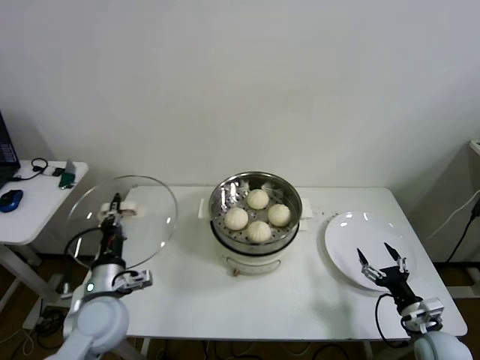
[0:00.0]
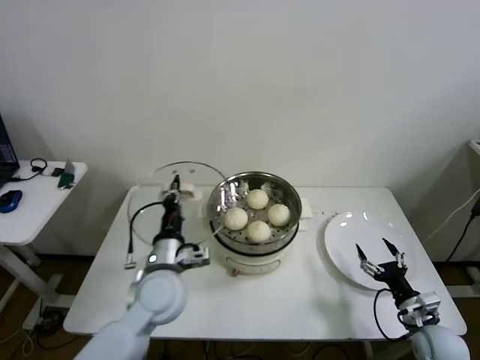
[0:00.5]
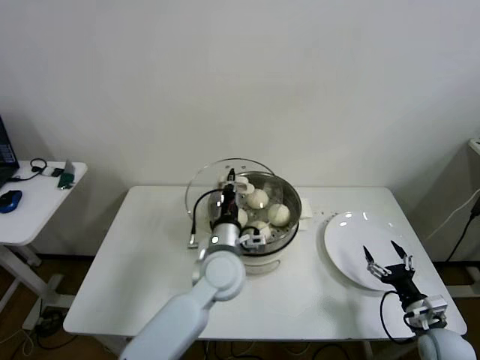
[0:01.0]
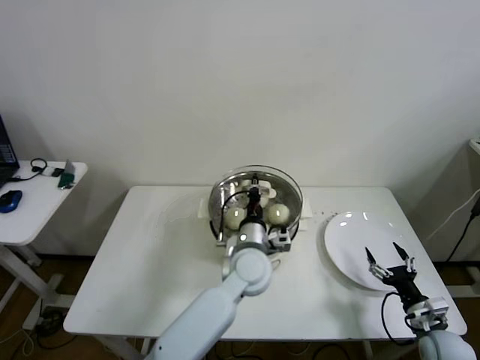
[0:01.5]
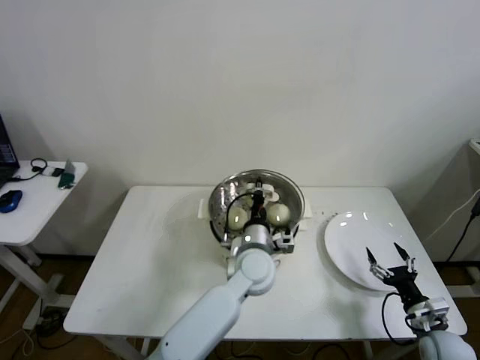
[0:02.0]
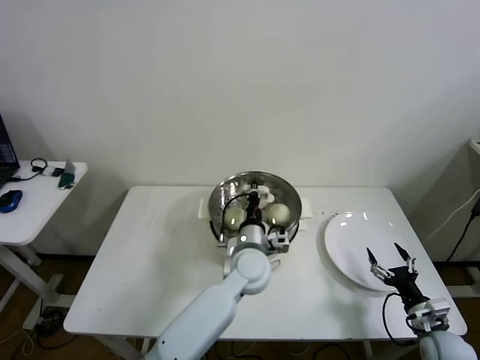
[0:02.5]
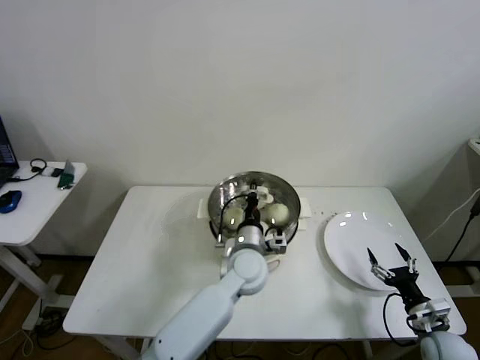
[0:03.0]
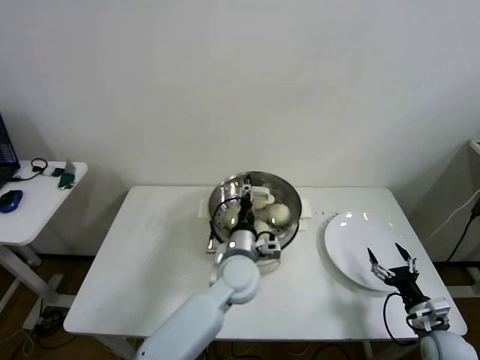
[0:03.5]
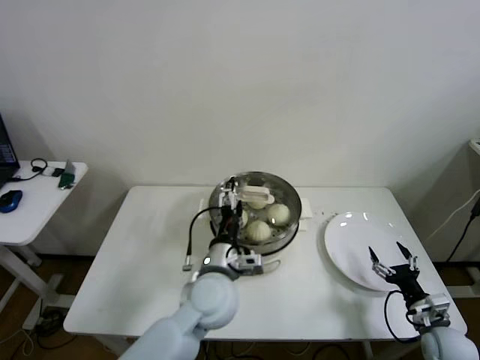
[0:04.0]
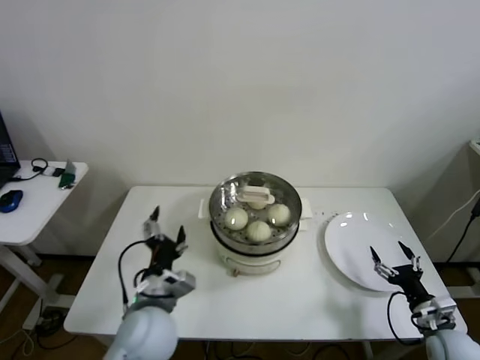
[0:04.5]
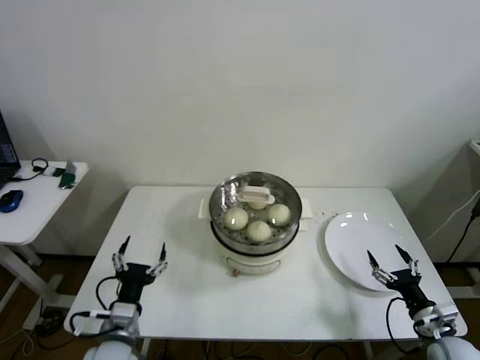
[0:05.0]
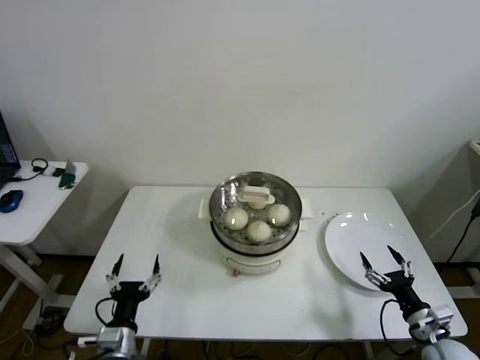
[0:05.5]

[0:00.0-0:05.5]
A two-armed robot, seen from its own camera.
Step, 0:00.0 to 0:03.0: Place the pot lid on the steamer with left gripper.
0:00.0 to 0:02.0: The left gripper is displaced to the right by roughly 30 cm.
0:02.0 to 0:03.5: The left gripper opens up.
0:03.5 to 0:05.5: The left gripper is displaced to the left and backward by some 30 cm, and opens up.

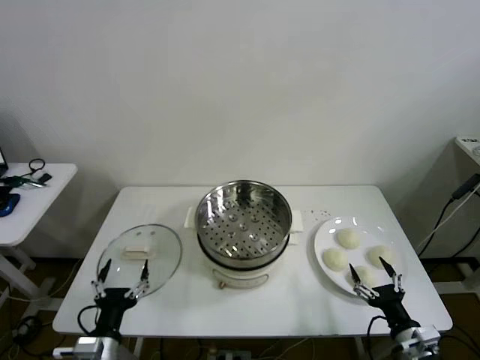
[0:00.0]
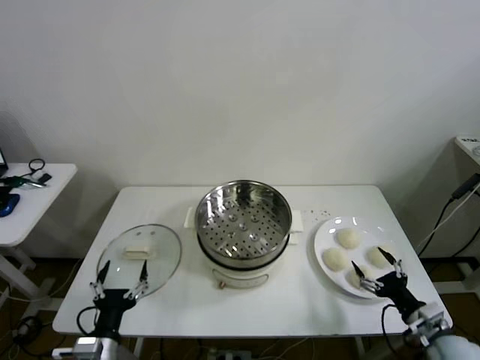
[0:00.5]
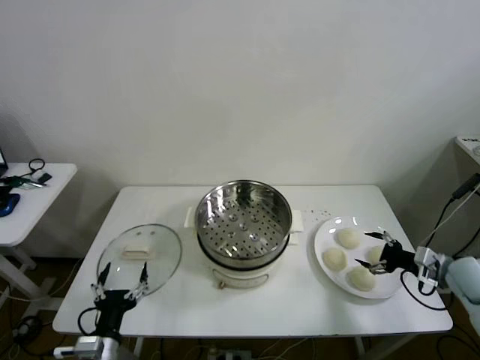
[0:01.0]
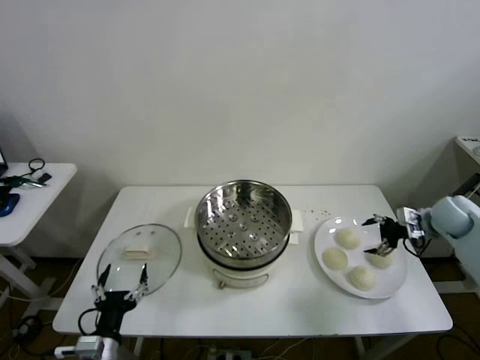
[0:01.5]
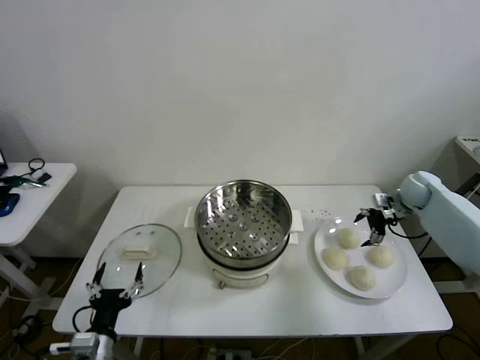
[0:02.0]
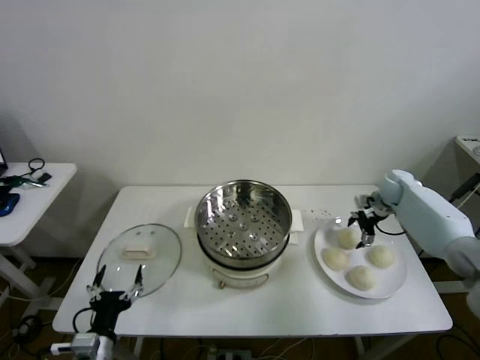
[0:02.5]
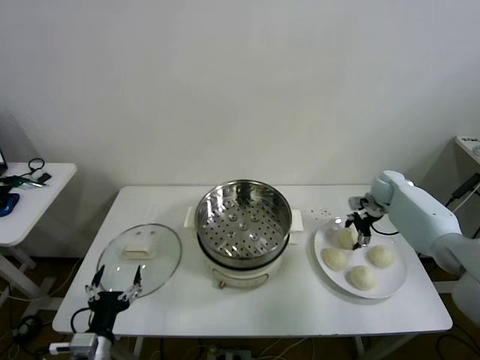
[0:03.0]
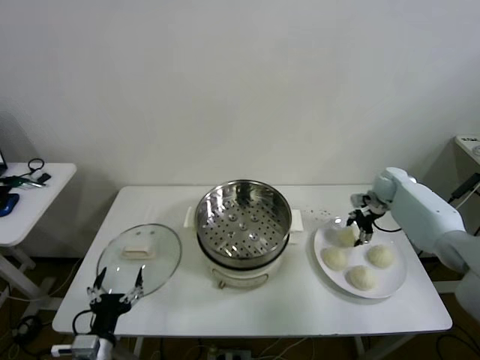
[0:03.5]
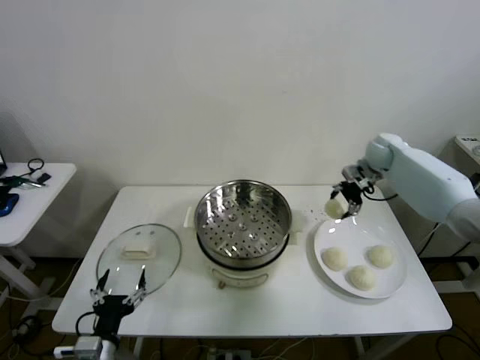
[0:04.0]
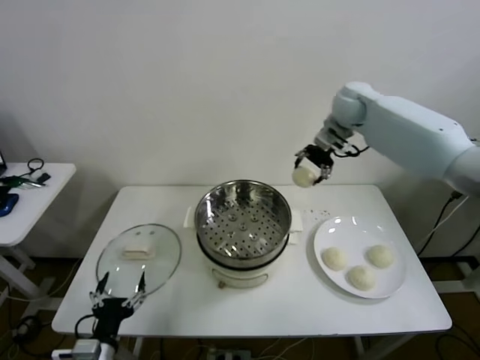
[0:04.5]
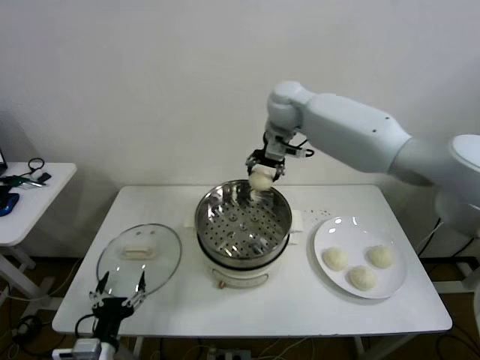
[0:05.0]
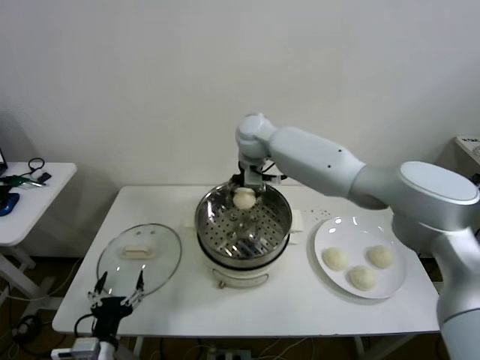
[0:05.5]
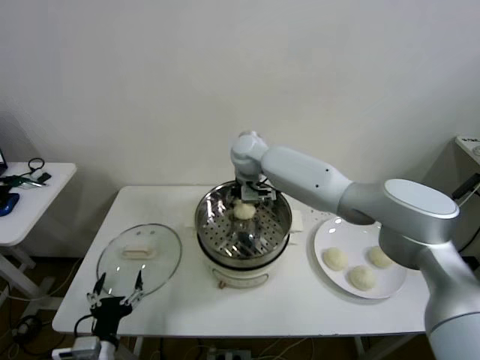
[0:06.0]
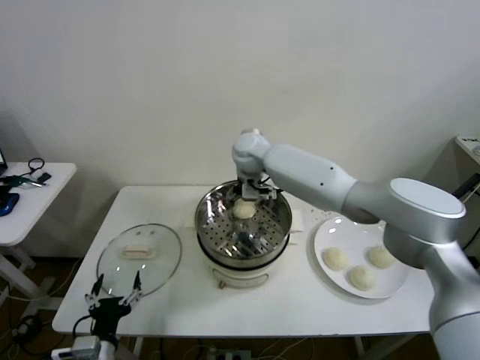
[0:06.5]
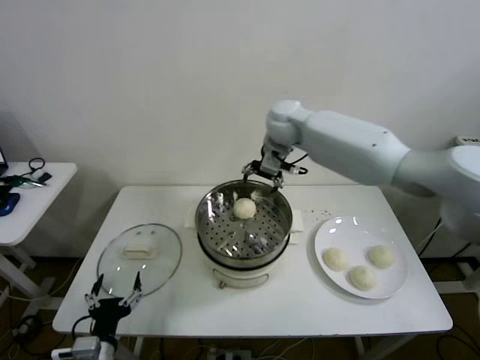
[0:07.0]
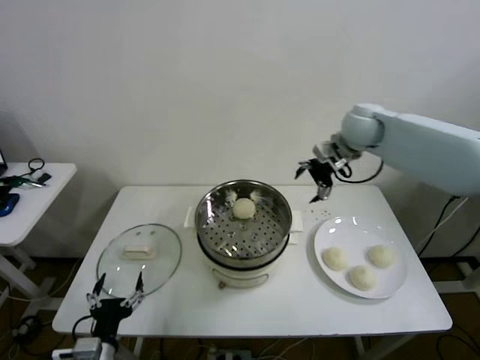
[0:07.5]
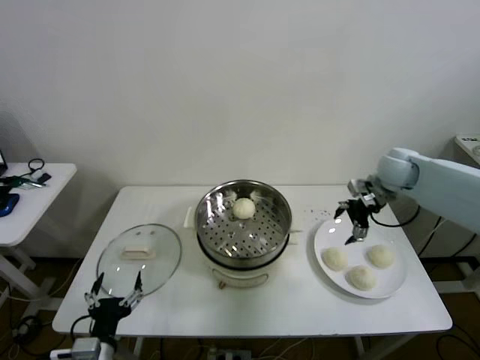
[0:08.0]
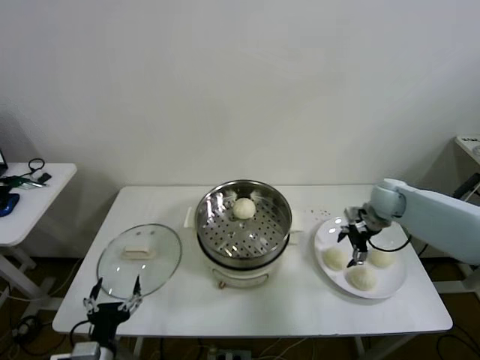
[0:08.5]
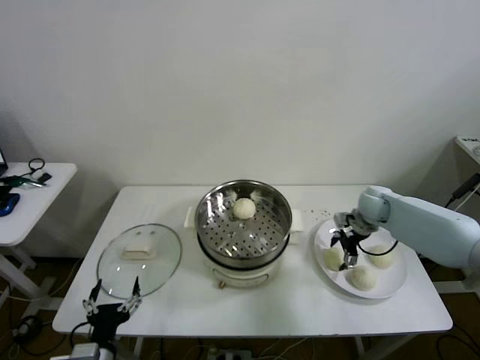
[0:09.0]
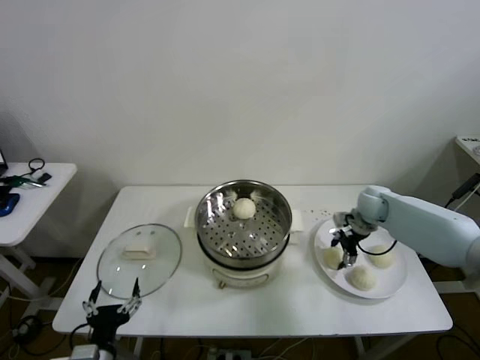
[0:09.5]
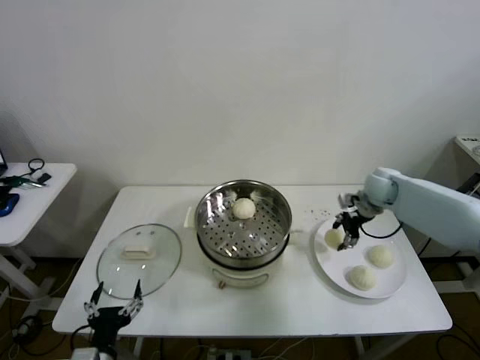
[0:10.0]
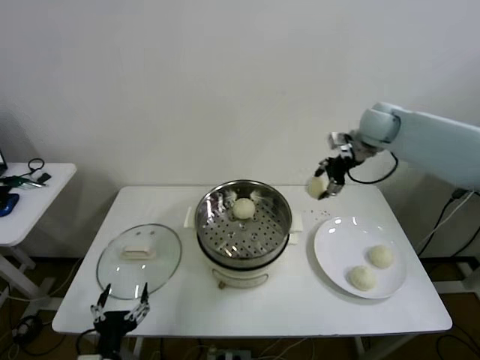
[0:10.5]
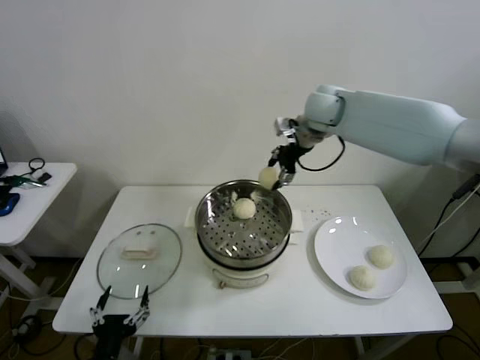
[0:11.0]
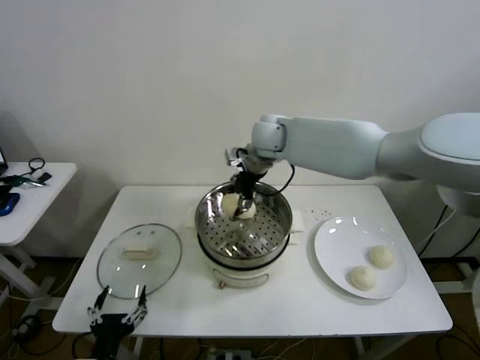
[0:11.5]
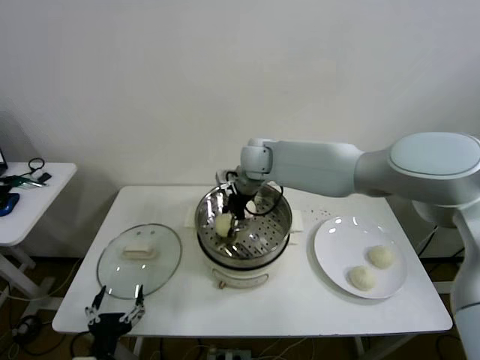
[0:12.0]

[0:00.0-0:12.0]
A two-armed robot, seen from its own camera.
Step, 0:00.0 to 0:03.0: Grasp the baozi in the plate with right gripper.
Step, 0:03.5 to 0:06.0: Place the baozi on the steamer with right gripper.
Step, 0:06.5 to 0:09.0: Grasp the baozi in the plate with right gripper.
0:02.0 to 0:04.0: The right gripper is displaced upward, to the left and forward by approximately 15 cm, and closes its fingers.
0:04.0 to 0:06.0: The right gripper goes about 35 cm to the left.
0:06.0 to 0:08.0: The right gripper moves to the right, roughly 35 cm, and opens its fingers.
0:08.0 to 0:10.0: The right gripper moves some 10 cm downward and comes back, and closes up.
0:10.0 to 0:12.0: The right gripper is displaced to the left by some 30 cm.

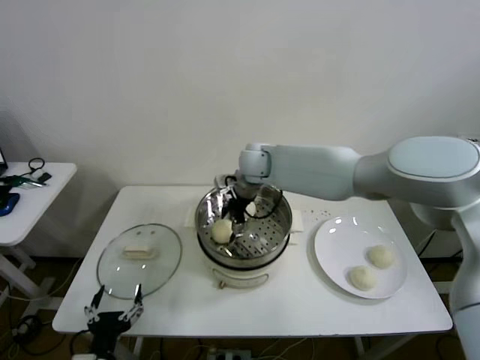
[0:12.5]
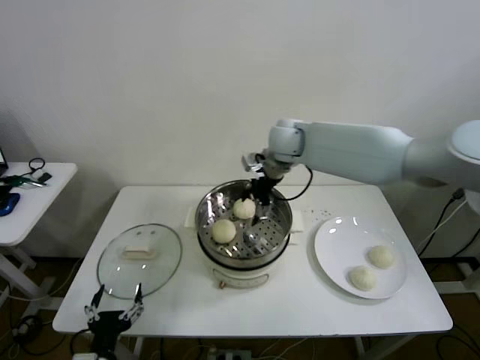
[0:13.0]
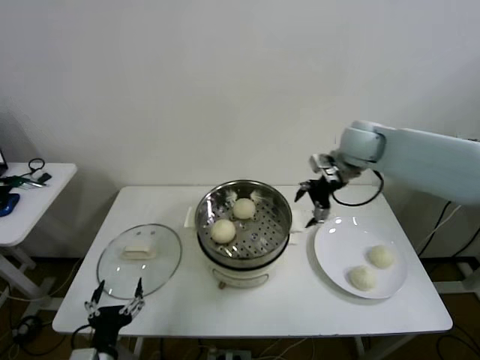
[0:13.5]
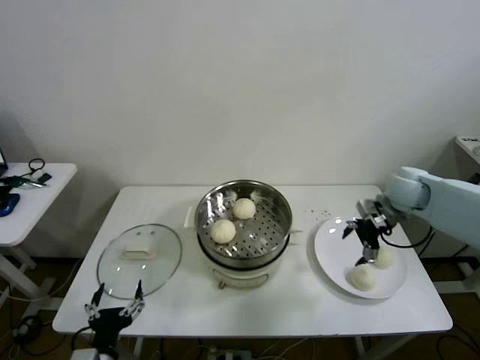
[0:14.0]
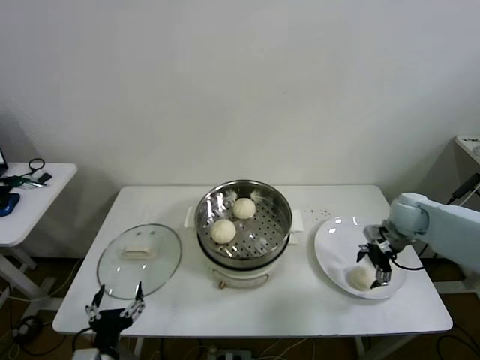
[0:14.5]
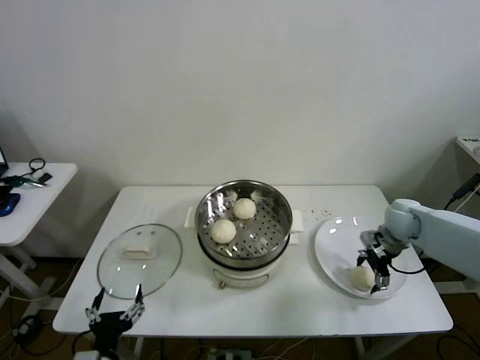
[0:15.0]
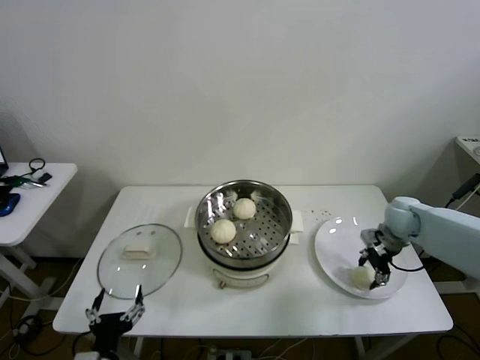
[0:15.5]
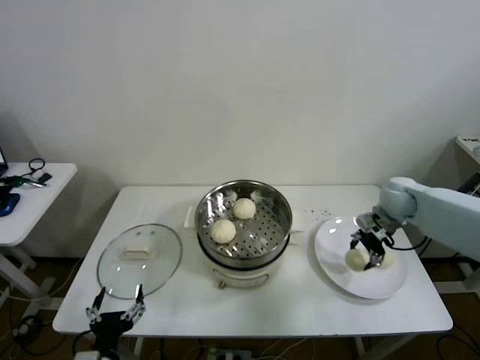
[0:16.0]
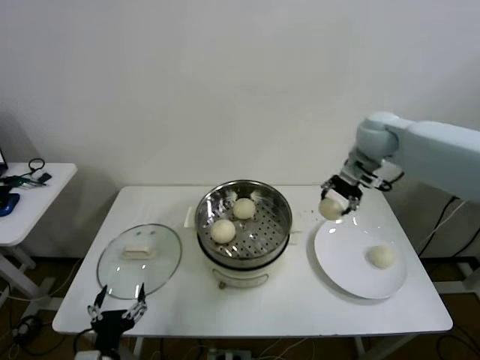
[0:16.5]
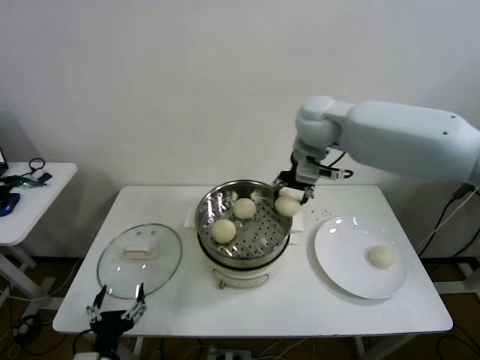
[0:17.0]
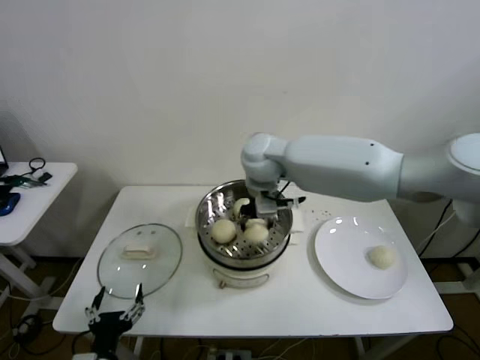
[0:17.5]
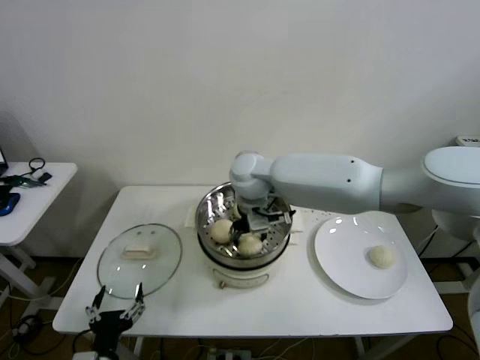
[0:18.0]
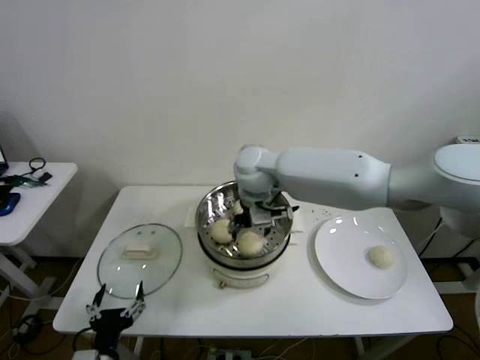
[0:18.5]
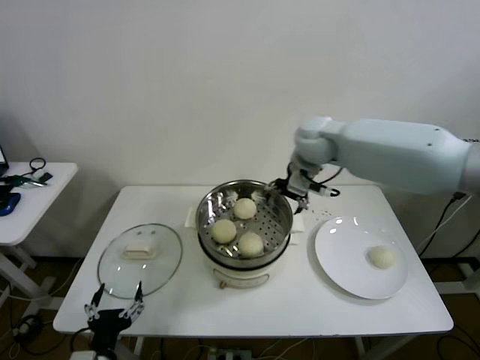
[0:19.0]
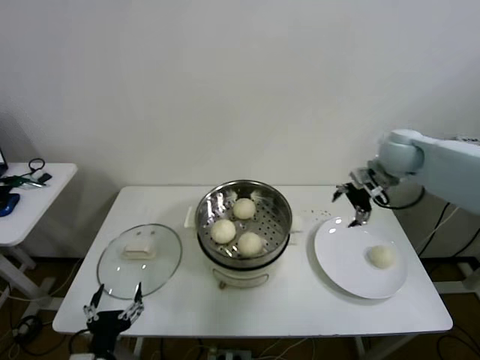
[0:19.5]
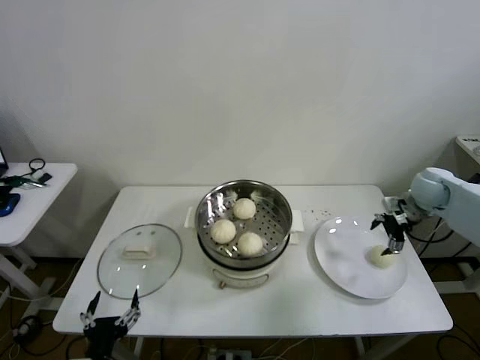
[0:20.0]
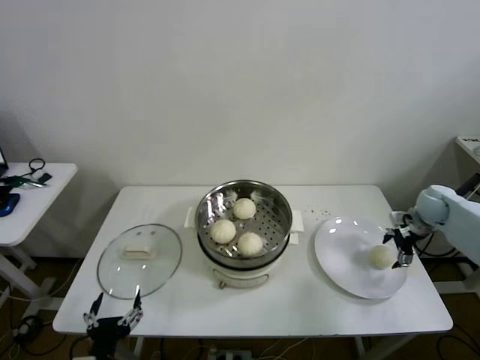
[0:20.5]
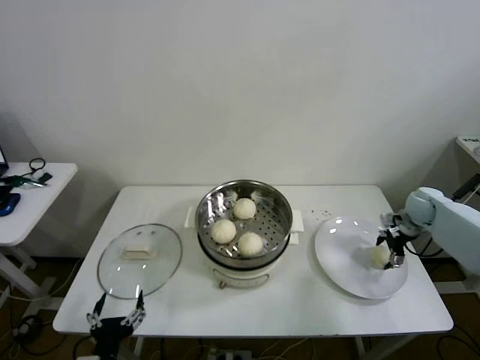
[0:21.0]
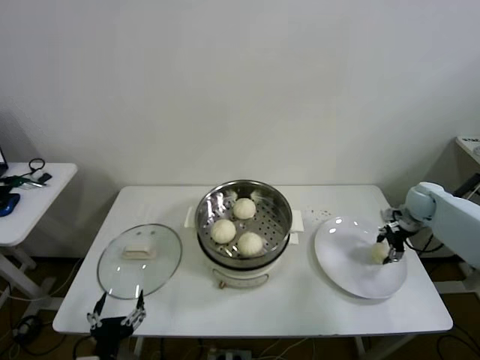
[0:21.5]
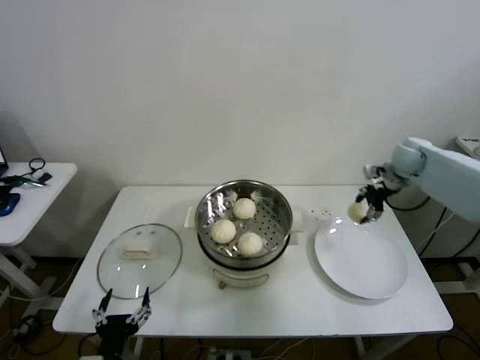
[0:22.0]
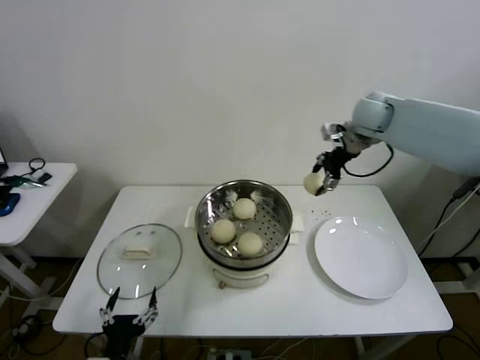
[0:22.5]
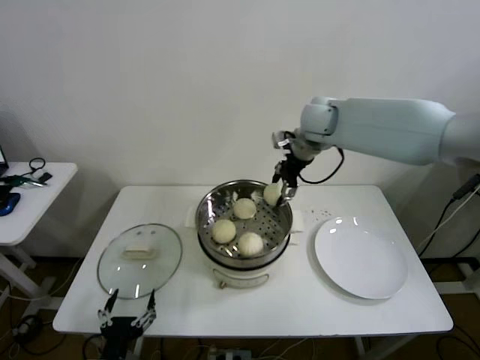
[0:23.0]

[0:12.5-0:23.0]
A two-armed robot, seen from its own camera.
Step, 0:12.5 to 0:15.0: Grasp the baozi in the plate with right gripper.
Step, 0:16.0 to 0:18.0: Place the baozi on the steamer with right gripper.
Step, 0:18.5 to 0:21.0: Grasp the baozi in the plate with right gripper.
0:12.5 to 0:14.5: The right gripper goes about 35 cm to the right.
0:14.5 to 0:16.5: The right gripper shifts some 25 cm upward and to the left, and closes up.
0:16.5 to 0:19.0: The right gripper shifts some 10 cm to the left, and opens up.
0:19.0 to 0:21.0: The right gripper heads to the right and downward, covering about 40 cm.
0:21.0 to 0:23.0: The right gripper travels to the left and upward by some 40 cm, and closes up.
